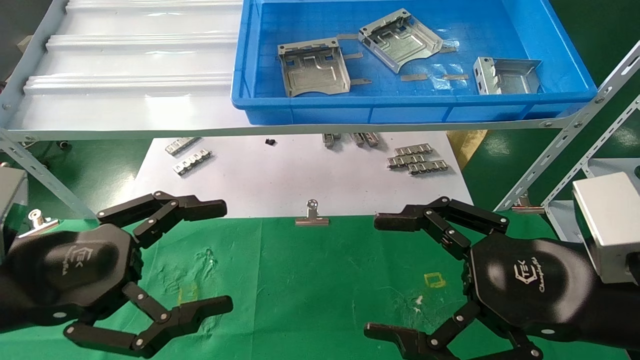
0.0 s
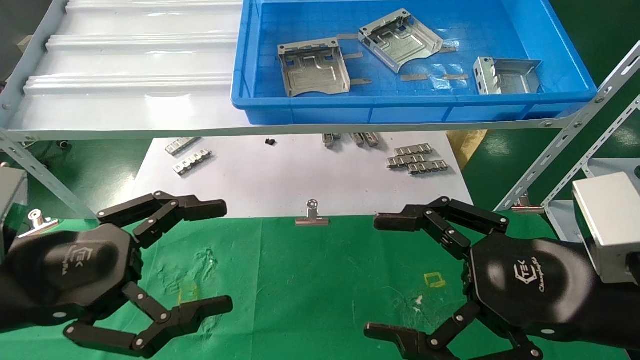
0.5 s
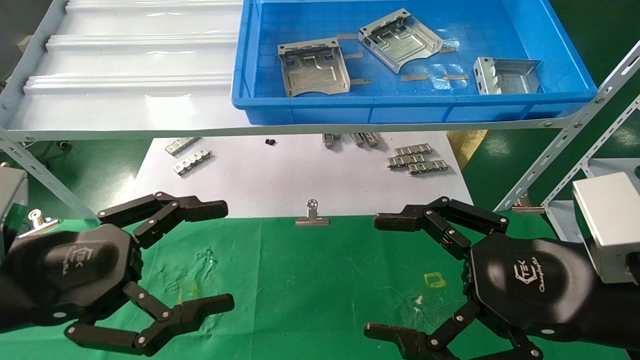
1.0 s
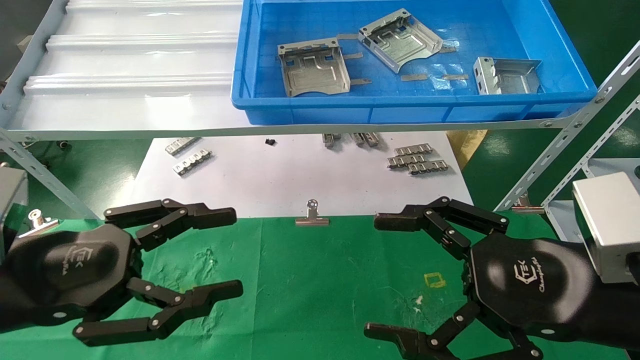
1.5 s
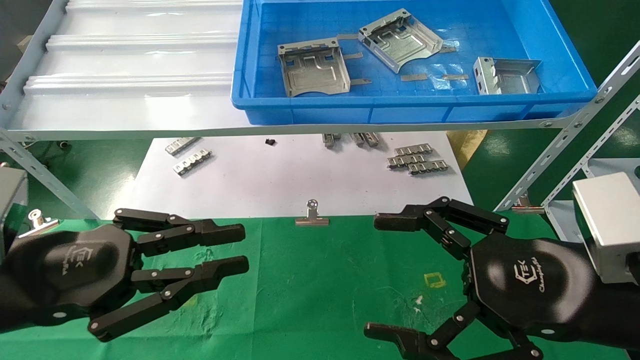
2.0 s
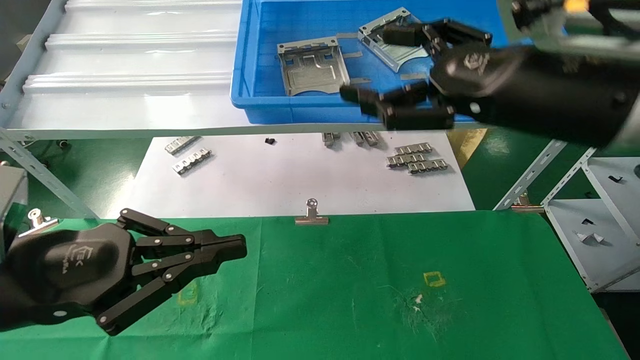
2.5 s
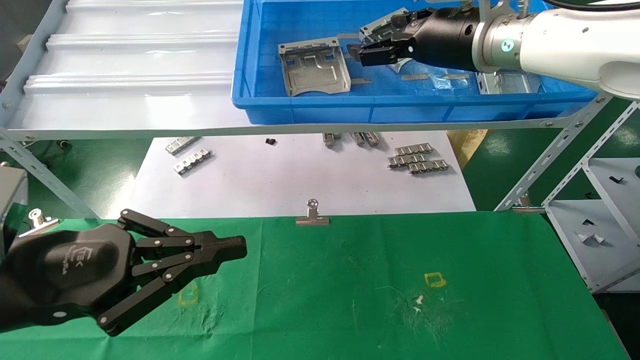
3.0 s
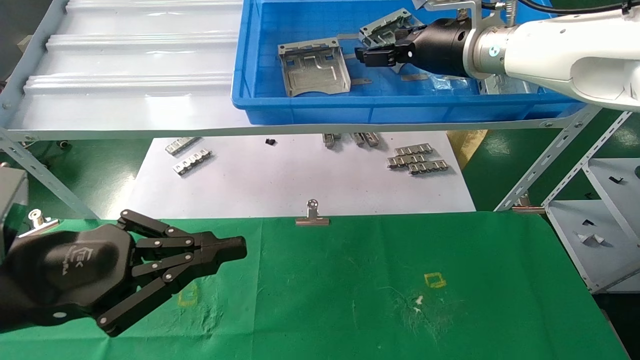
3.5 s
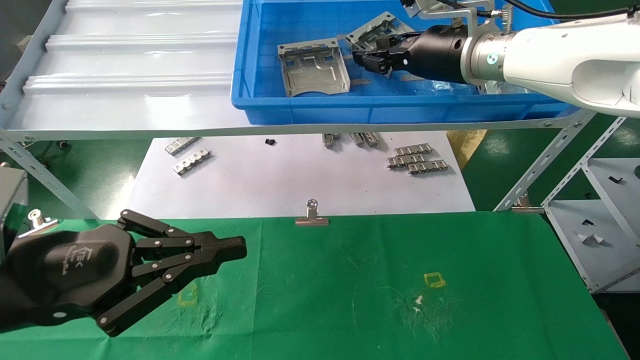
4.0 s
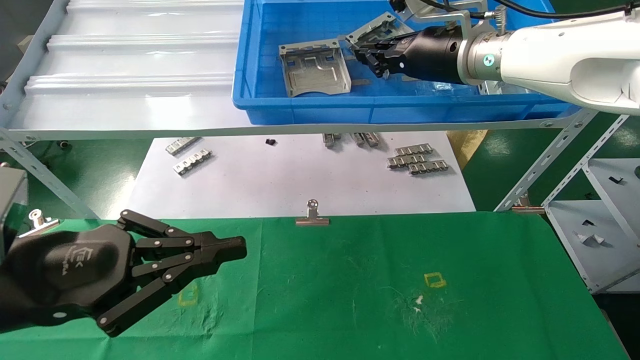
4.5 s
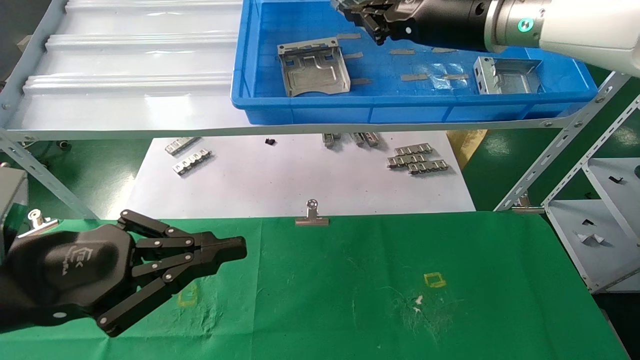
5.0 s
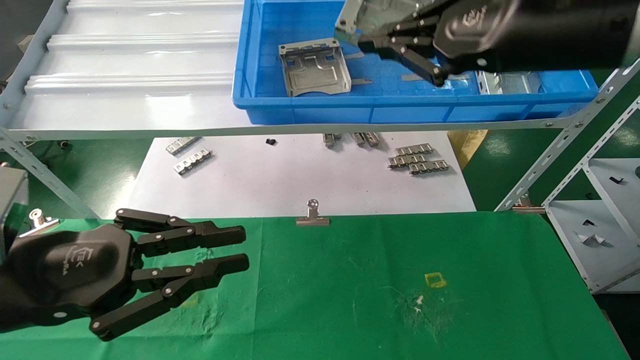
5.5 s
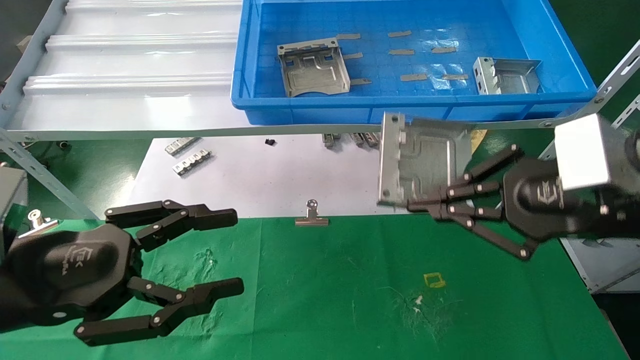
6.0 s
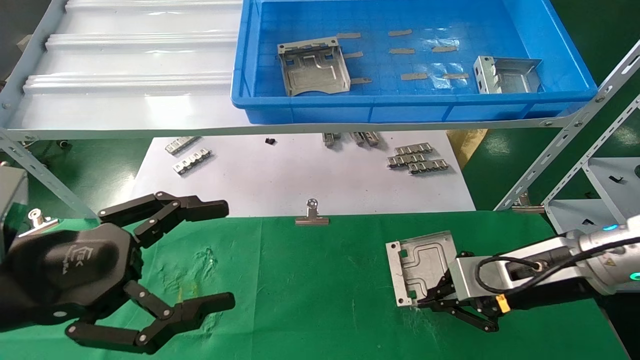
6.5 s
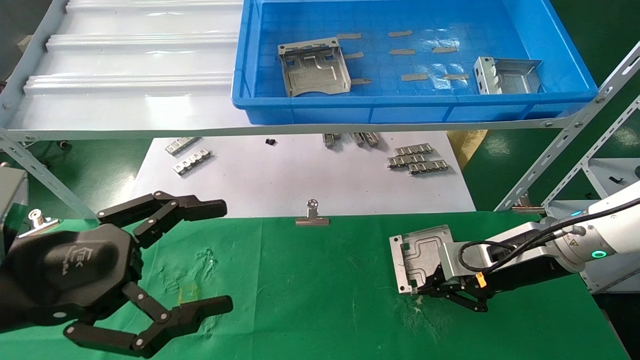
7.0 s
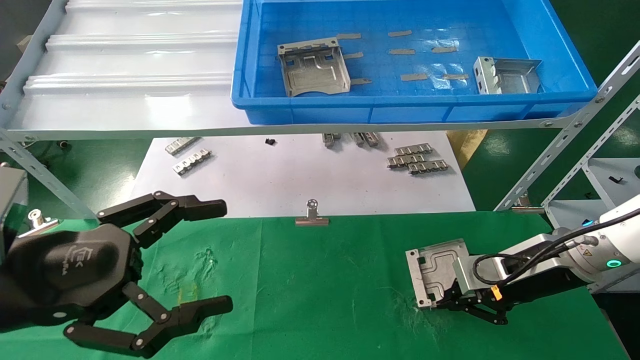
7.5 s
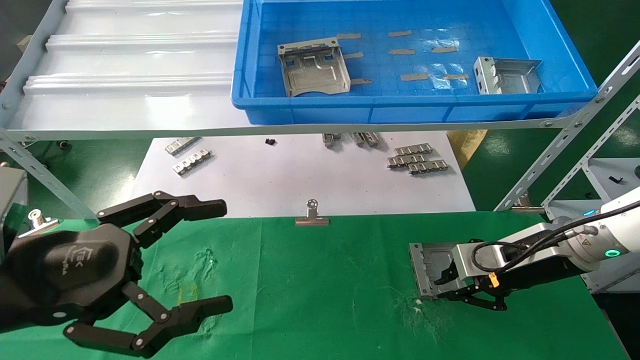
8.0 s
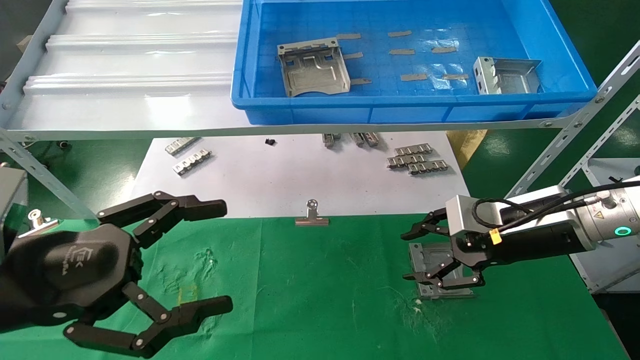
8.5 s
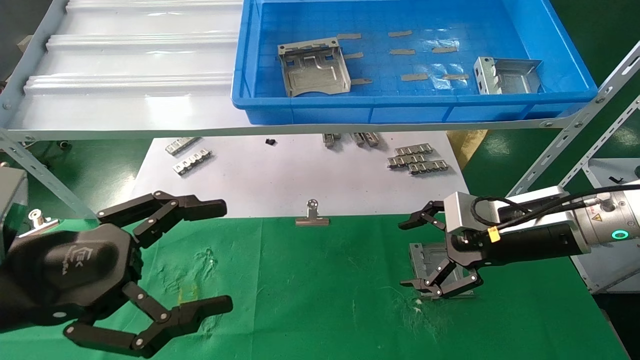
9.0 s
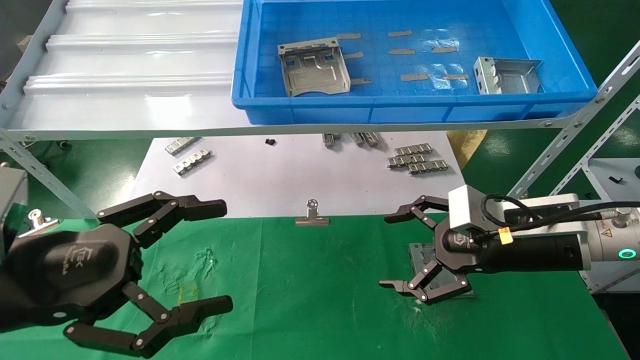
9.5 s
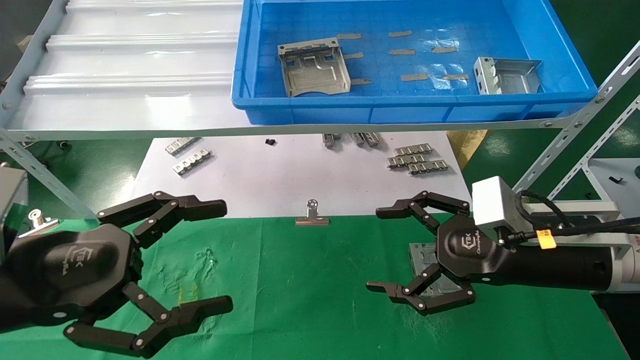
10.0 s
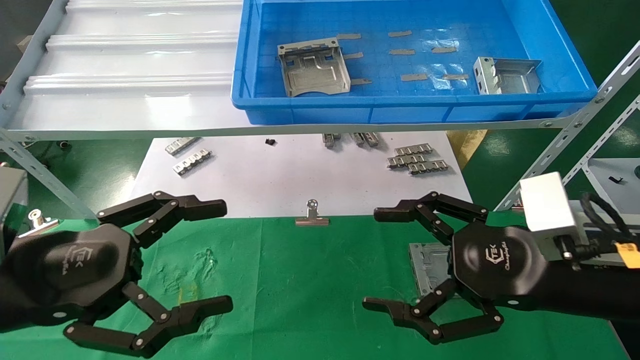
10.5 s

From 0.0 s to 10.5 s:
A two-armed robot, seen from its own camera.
Task of the whole recording: use the mechanical arm to pick up the parts and place them on the table.
Step, from 2.0 s to 5.0 s: Pick up the hard drive bracket from the feeding area.
Step, from 5.5 s to 8.0 s: Place the hard drive bracket into the box.
From 0.0 s to 2.0 s: The left gripper closes up.
From 2.0 s to 4.0 s: The right gripper heads forward and upward, covering approximately 30 cm, and closes its fingers.
From 4.0 s to 6.5 s: The left gripper opens up. Meanwhile the right gripper heads downward, backward and to the right, covering approximately 25 cm, and closes.
From 6.5 s to 8.5 s: The right gripper opens.
From 8.5 s to 10.5 s: The right gripper heads backward, covering approximately 10 cm, and opens.
